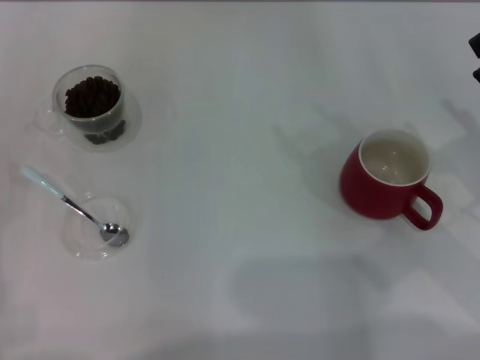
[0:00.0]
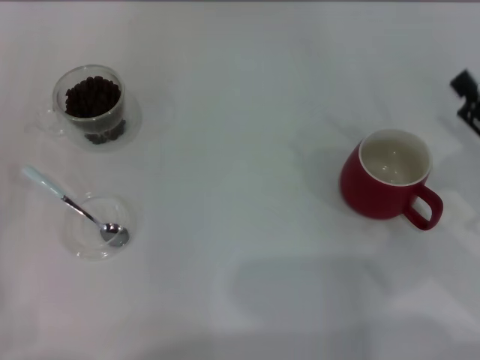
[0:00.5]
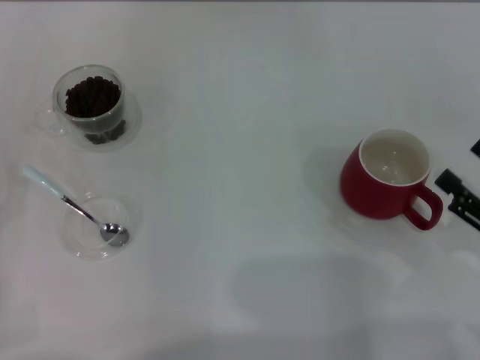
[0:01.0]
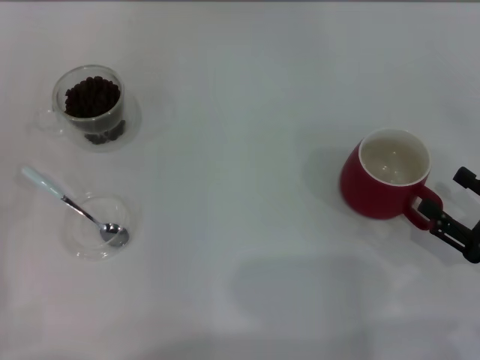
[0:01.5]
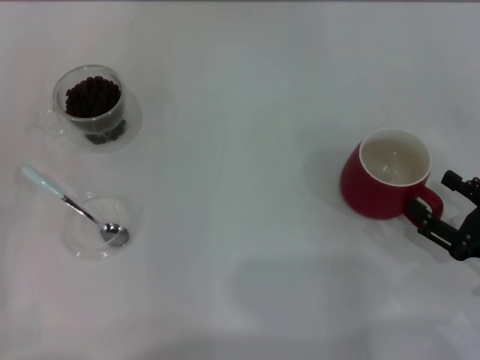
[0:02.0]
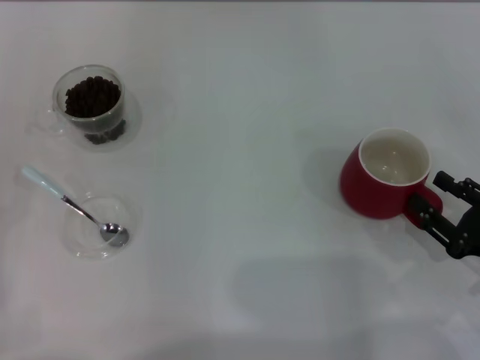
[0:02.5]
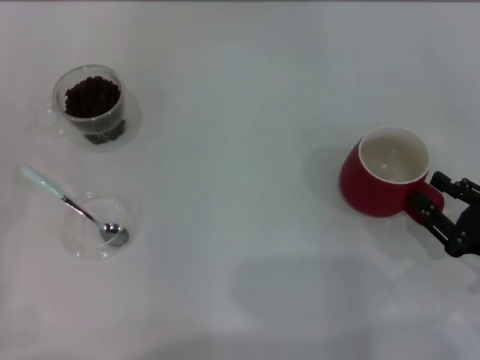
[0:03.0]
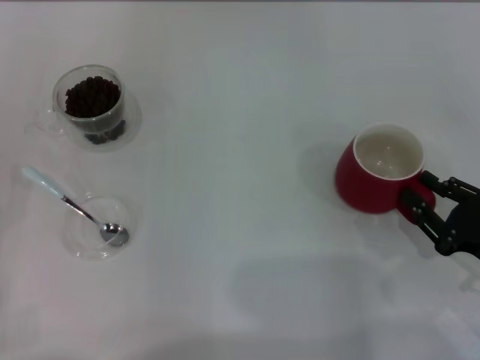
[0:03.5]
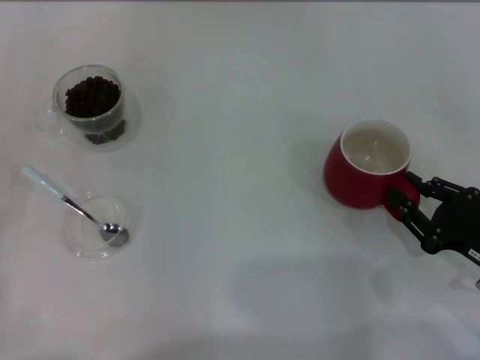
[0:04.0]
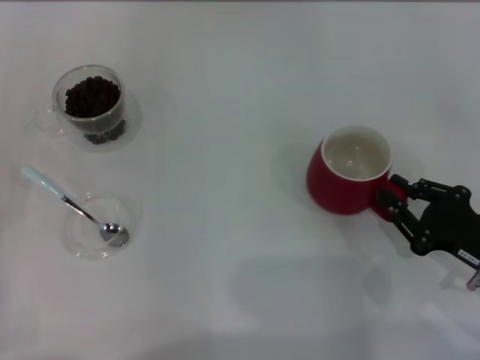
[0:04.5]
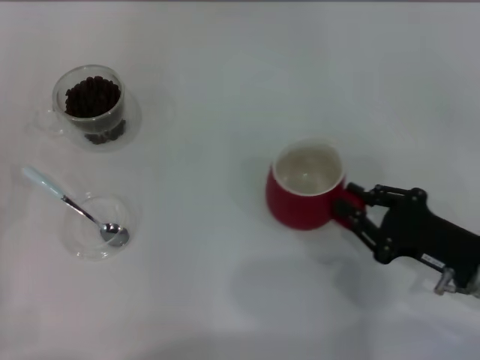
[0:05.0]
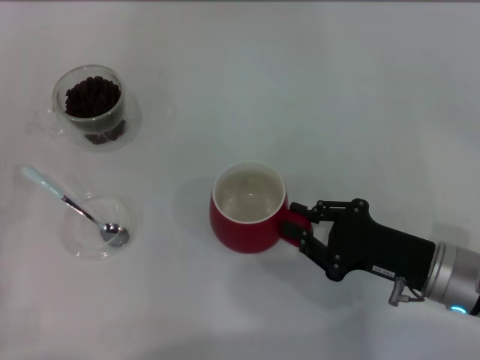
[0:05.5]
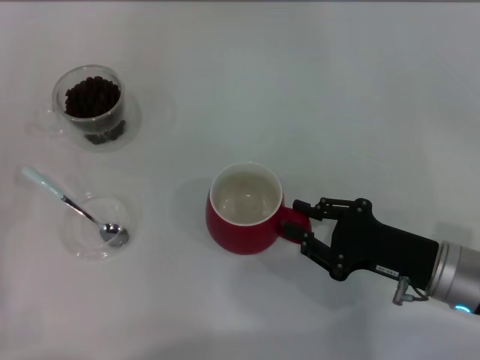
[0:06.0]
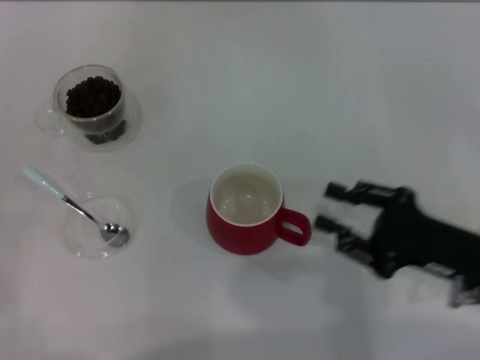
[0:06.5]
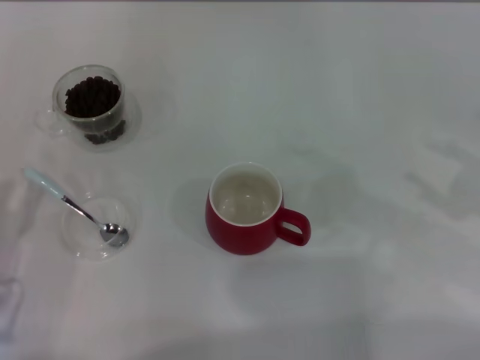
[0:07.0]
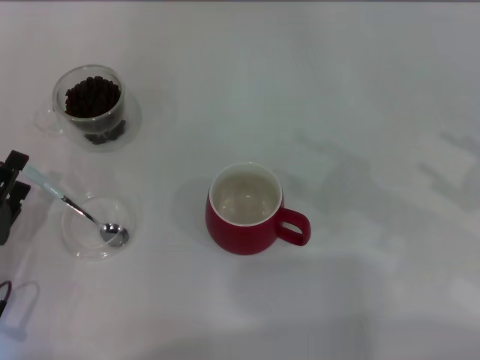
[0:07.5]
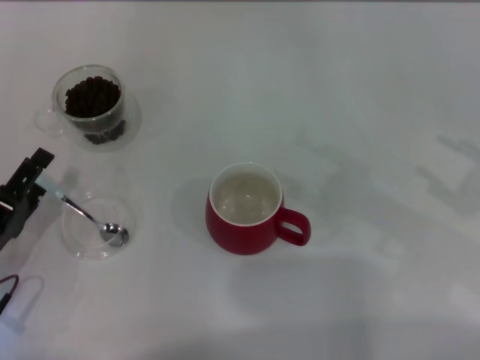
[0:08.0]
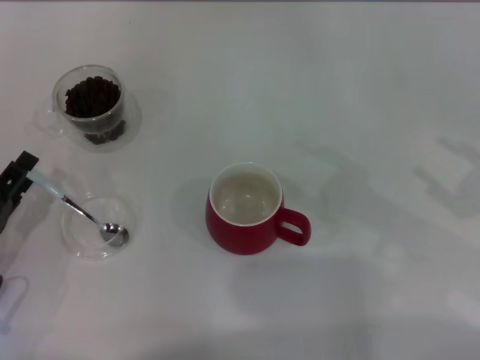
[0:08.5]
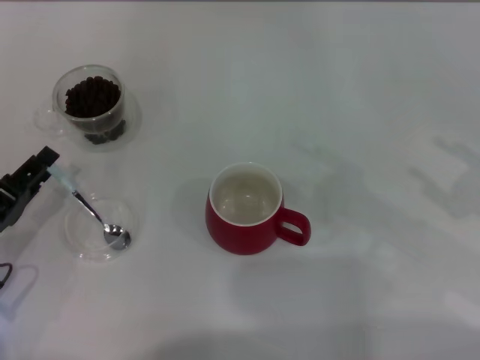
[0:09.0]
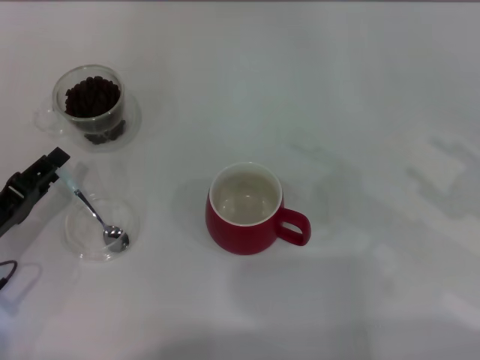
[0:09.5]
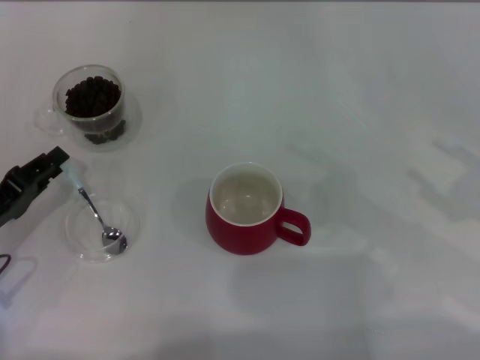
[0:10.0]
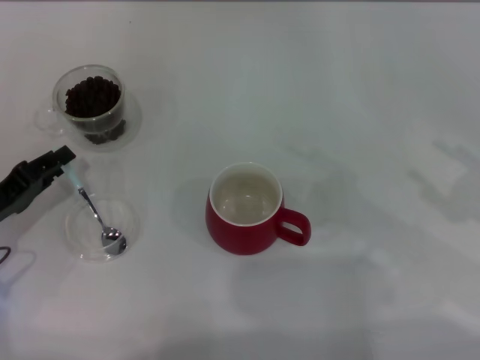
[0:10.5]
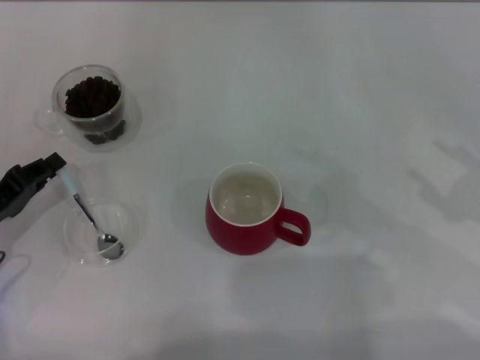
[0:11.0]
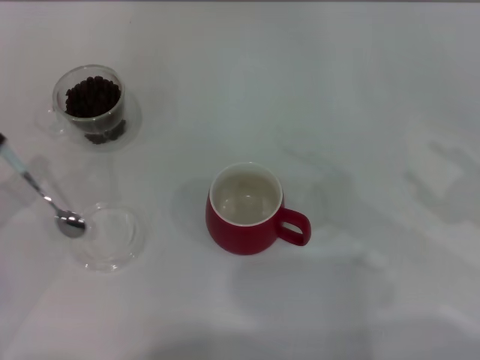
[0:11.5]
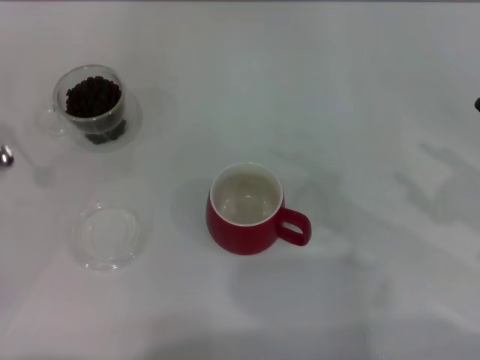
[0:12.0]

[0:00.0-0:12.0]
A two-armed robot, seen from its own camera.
Task of the whole recording: Use a blue spoon to take out the coffee beans from the glass and pour them into the red cup.
Step, 0:00.0 to 0:06.5: Move the cup to the center of view with the left gripper.
Step, 0:07.0 to 0:11.5: Pick up the spoon with the right gripper.
0:00.0 to 0:02.0: The right gripper moves downward and backward, some 10 cm.
0:02.0 to 0:04.0: The right gripper closes up.
0:04.0 to 0:06.0: The right gripper heads to the left, covering about 10 cm.
0:06.0 to 0:08.0: The left gripper moves to the right, roughly 10 cm. The right gripper heads to the right and upward, covering approximately 15 cm, and opens its fingers.
0:08.0 to 0:10.0: The left gripper closes its fingers.
0:10.0 to 0:12.0: The left gripper goes about 10 cm to the left and upward, and closes up.

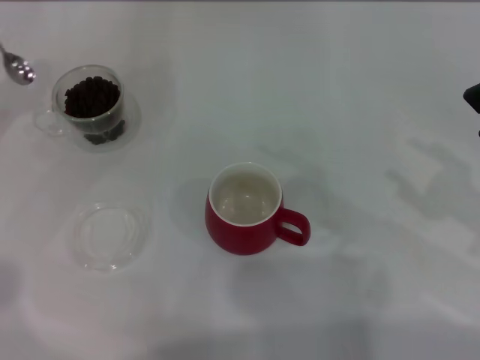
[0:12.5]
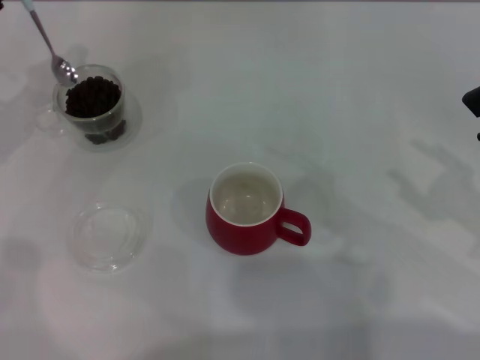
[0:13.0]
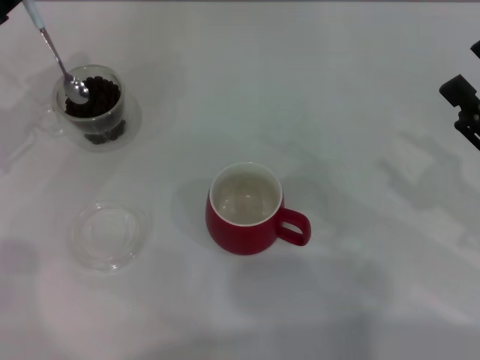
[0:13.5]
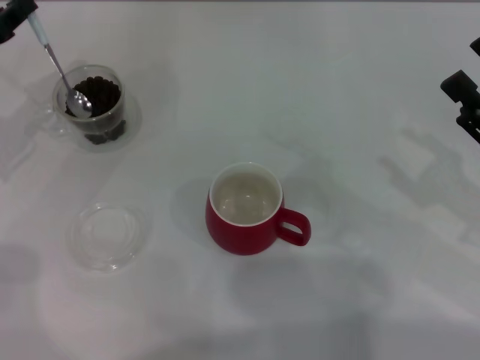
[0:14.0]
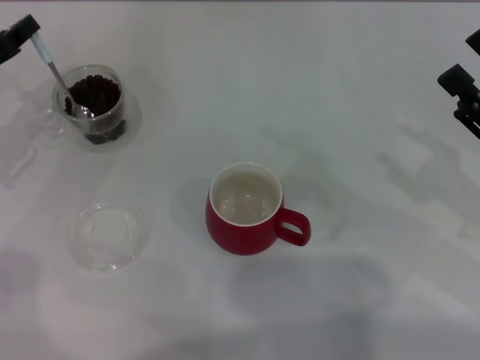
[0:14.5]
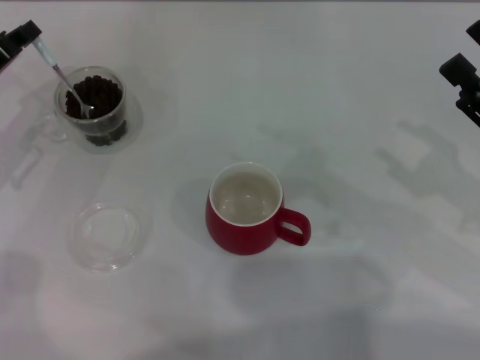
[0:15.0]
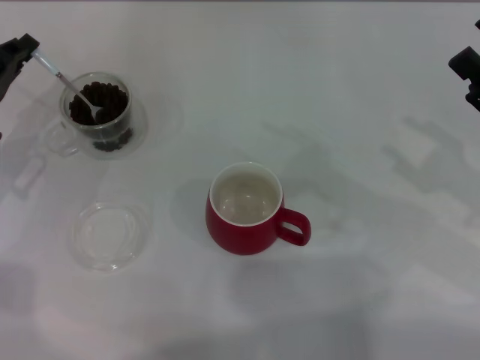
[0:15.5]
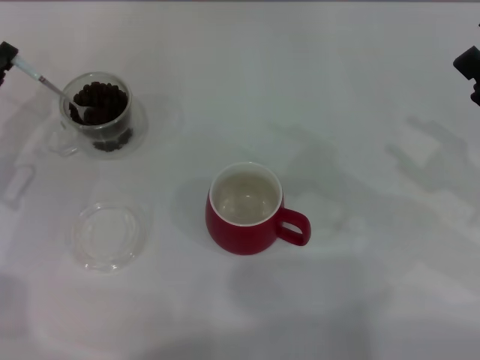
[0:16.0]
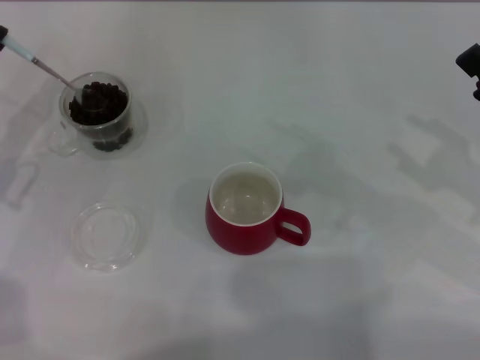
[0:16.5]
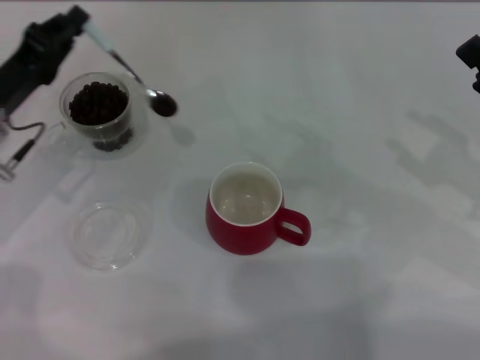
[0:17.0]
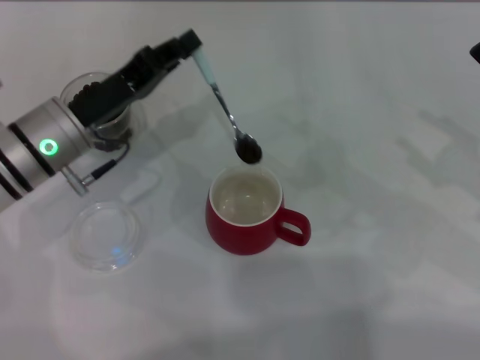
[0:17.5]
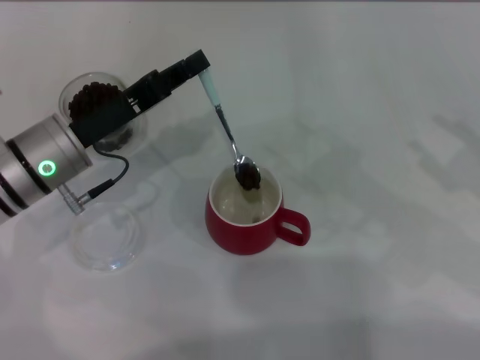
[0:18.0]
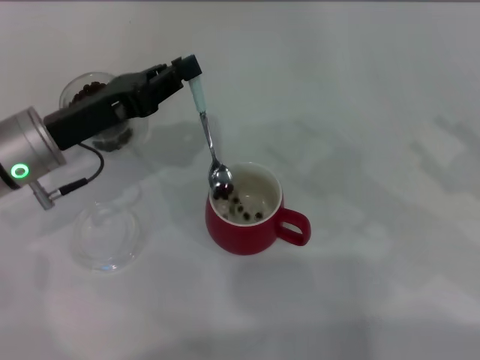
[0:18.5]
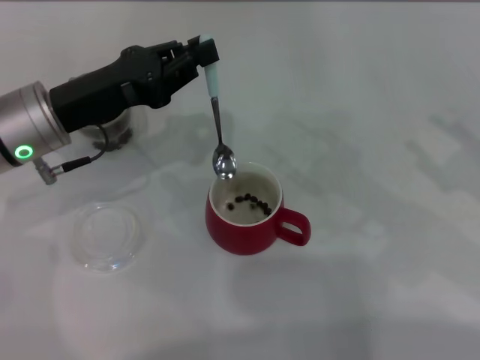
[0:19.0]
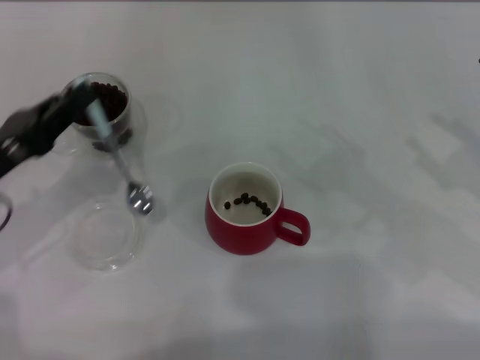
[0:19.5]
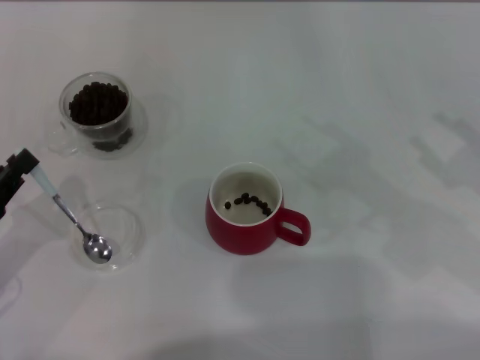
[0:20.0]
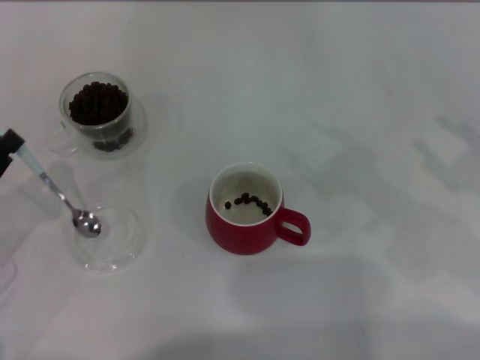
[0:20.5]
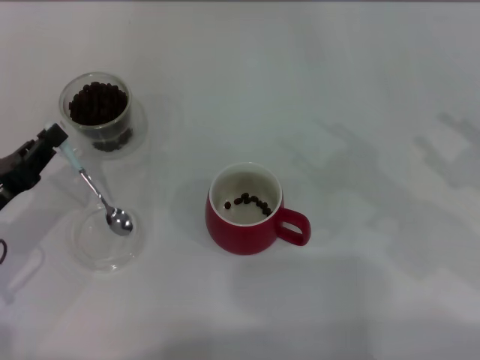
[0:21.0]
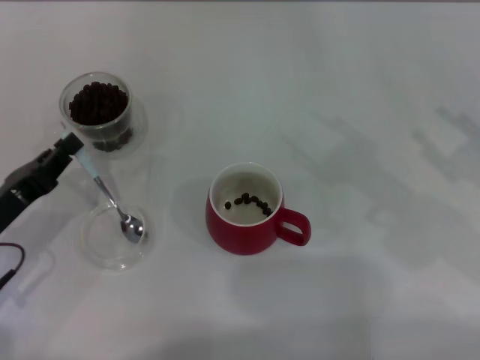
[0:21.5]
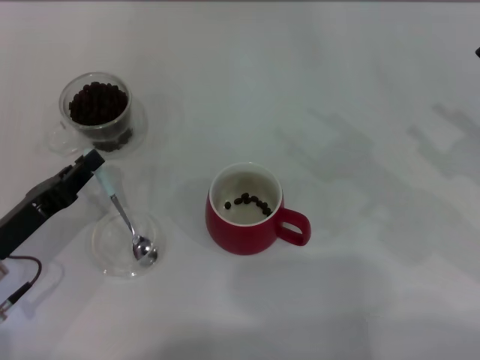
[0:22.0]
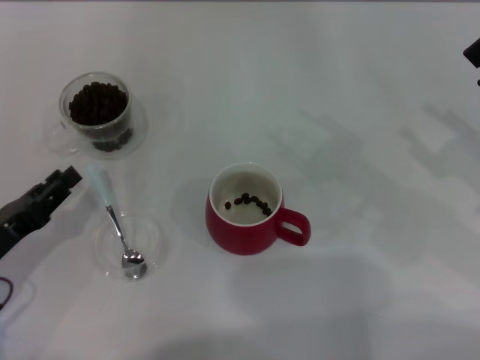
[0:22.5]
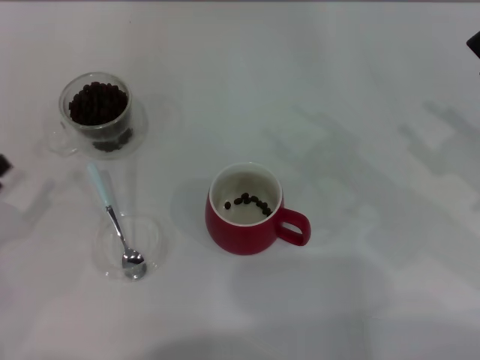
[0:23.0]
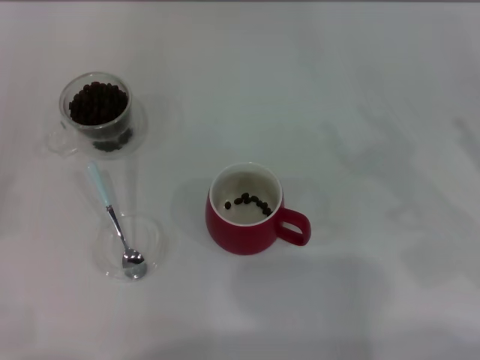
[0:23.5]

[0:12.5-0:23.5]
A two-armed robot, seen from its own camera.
Task of the whole recording: Use a blue spoon to take out the coffee beans from the glass and pour them into the red cup.
Step, 0:12.5 to 0:19.0: Scoop a spoonful of beans into the cup with the right gripper.
Step, 0:19.5 to 0:22.5: Place the spoon back in its original place with the right gripper.
0:12.5 to 0:14.5: The left gripper moves approximately 5 cm.
0:16.0 to 0:18.0: The left gripper travels to the right by about 10 cm.
0:18.0 to 0:20.0: The left gripper shifts some 20 cm to the left and backward.
0:20.0 to 0:21.5: The left gripper shifts by about 5 cm.
0:21.5 to 0:23.5: The left gripper moves to the left and backward, approximately 15 cm, and opens up.

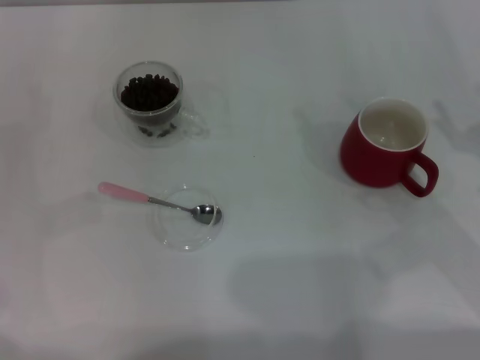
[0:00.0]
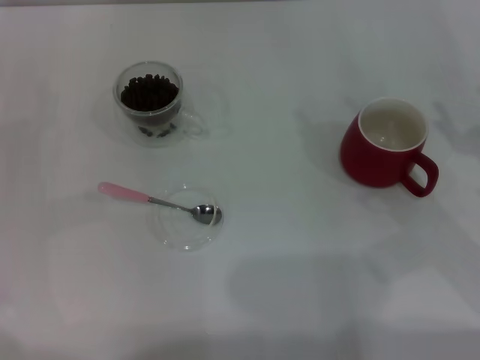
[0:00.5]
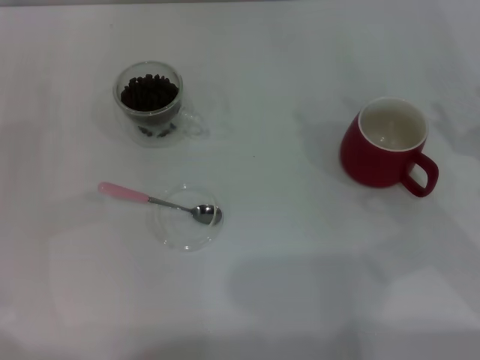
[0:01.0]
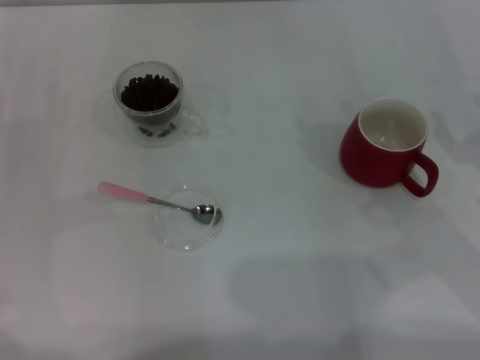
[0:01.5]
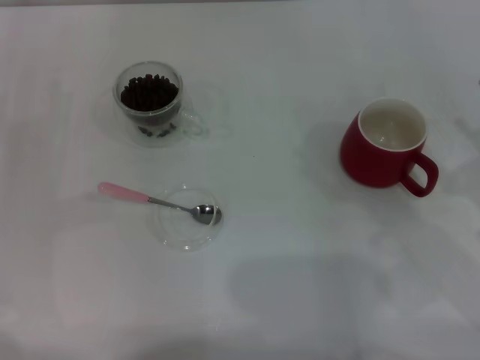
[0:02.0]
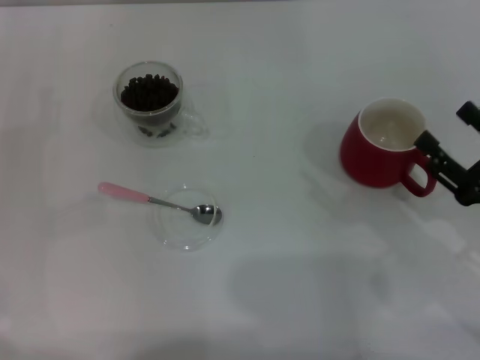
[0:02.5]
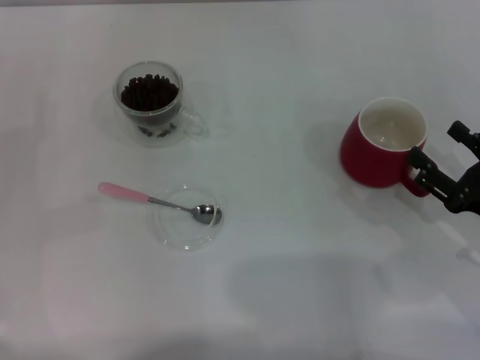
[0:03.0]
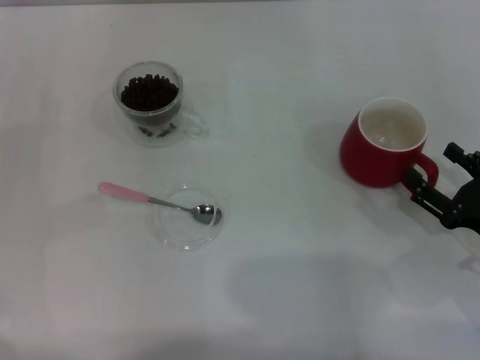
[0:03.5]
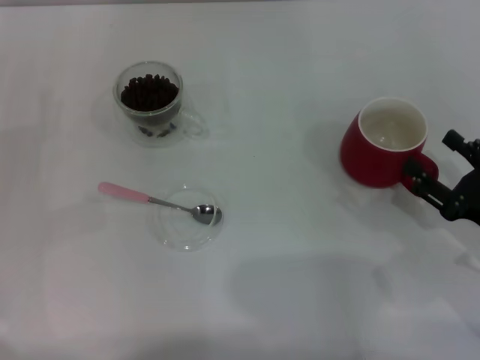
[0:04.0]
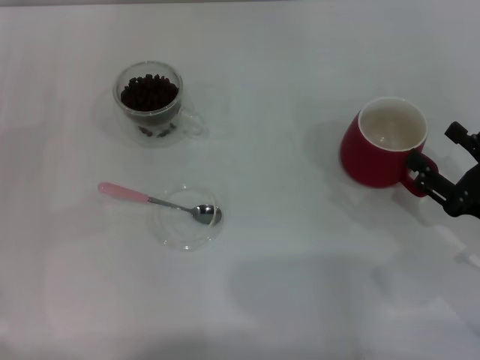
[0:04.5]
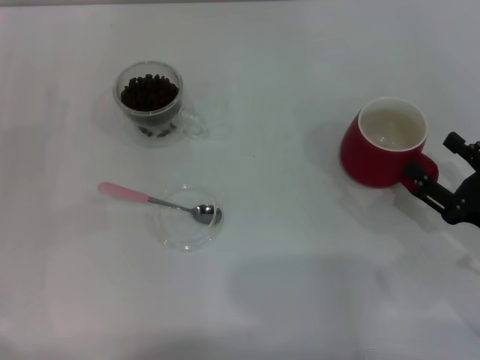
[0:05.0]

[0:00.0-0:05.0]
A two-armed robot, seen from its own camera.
Task of the whole recording: Use a pink spoon to take out the coffee beans from the glass and pour them into the red cup.
0:00.0 to 0:02.5: The right gripper changes place by approximately 5 cm.
0:02.5 to 0:05.0: The grippers move only a little.
